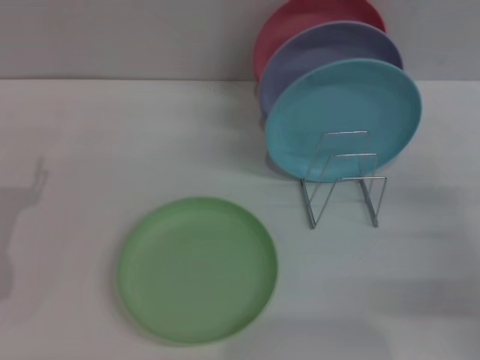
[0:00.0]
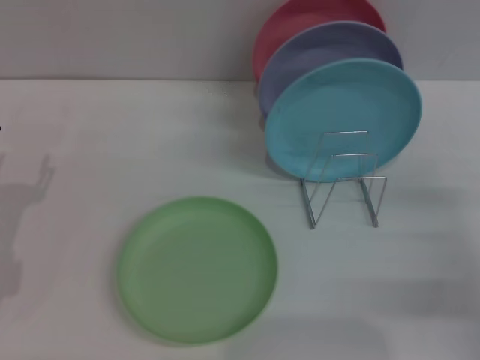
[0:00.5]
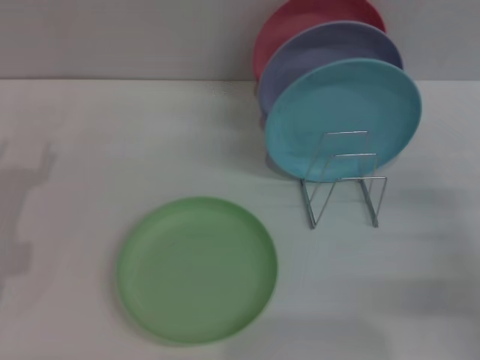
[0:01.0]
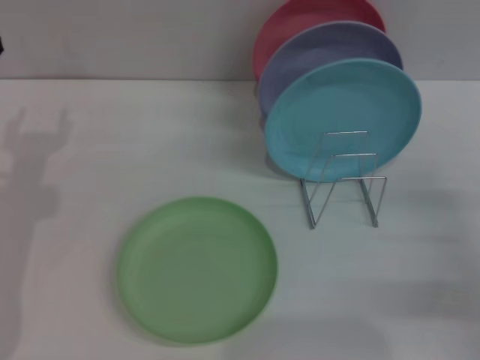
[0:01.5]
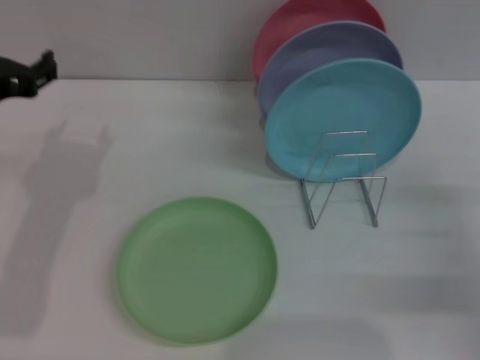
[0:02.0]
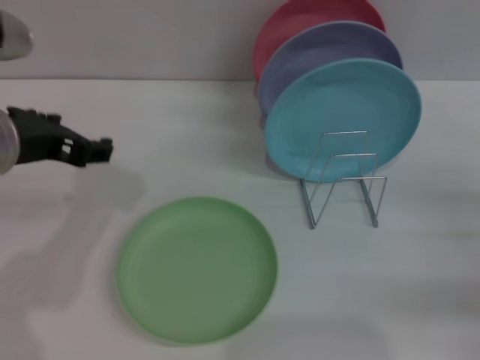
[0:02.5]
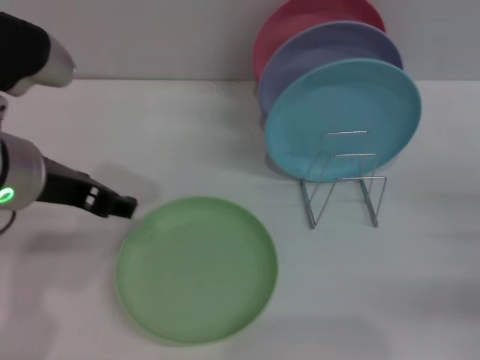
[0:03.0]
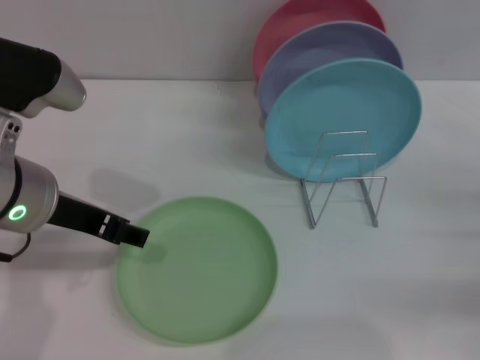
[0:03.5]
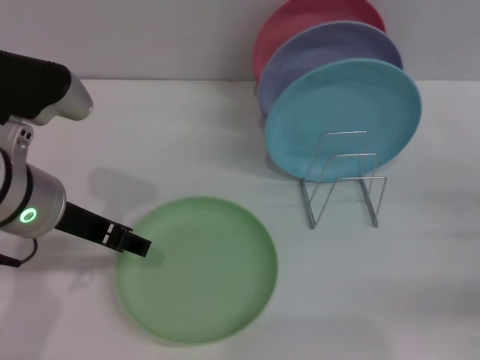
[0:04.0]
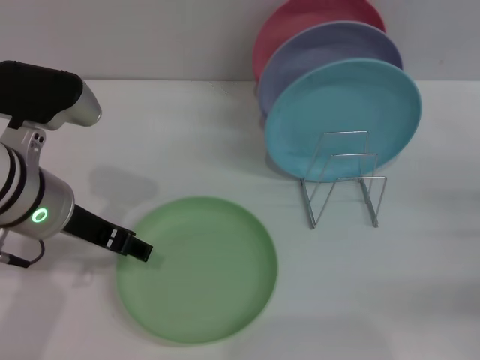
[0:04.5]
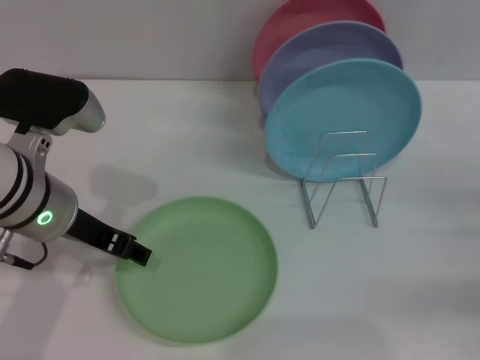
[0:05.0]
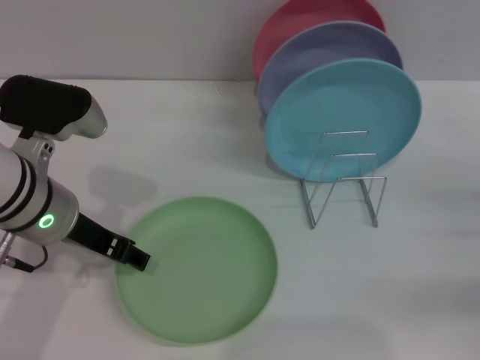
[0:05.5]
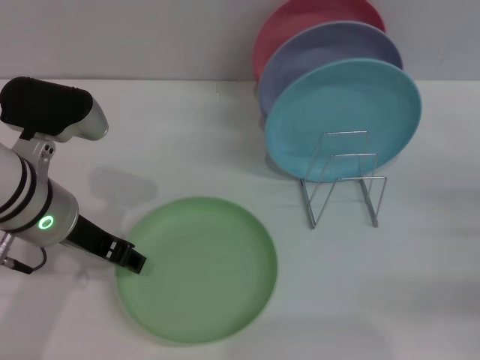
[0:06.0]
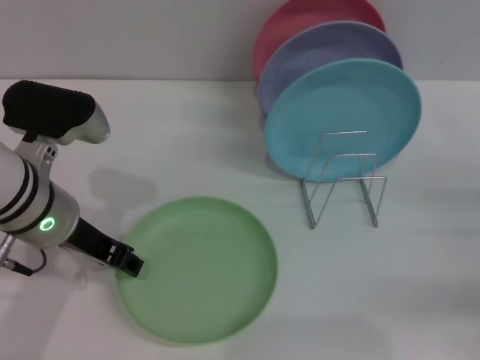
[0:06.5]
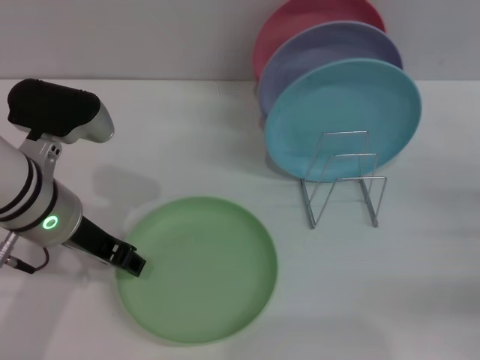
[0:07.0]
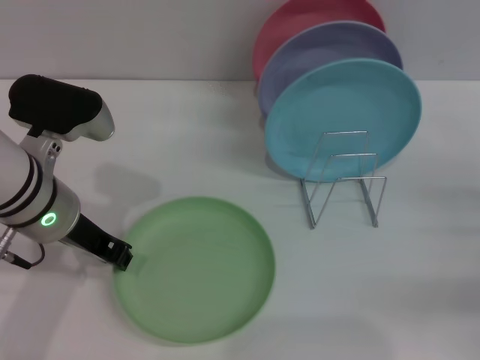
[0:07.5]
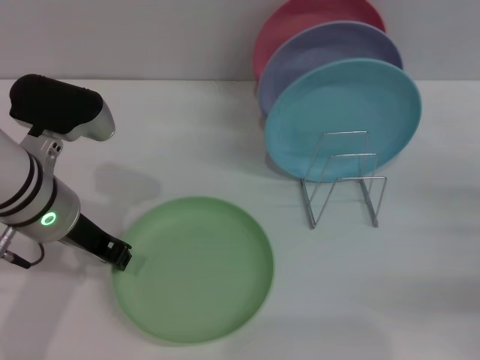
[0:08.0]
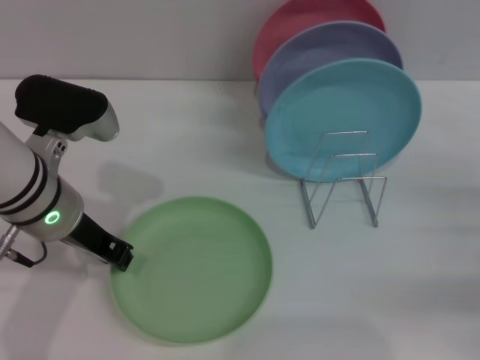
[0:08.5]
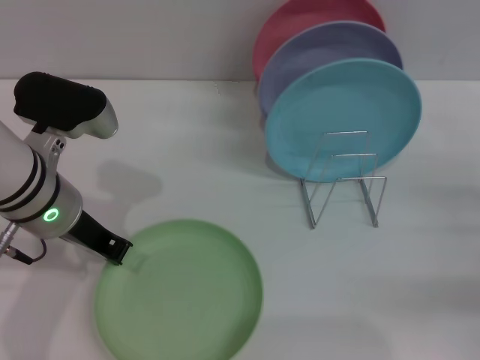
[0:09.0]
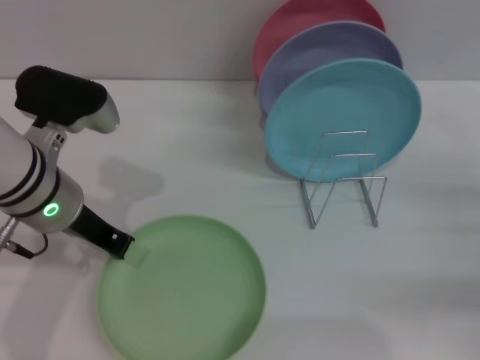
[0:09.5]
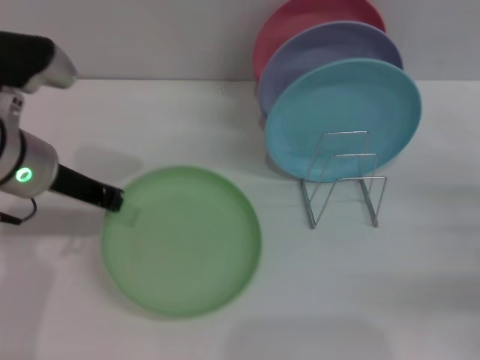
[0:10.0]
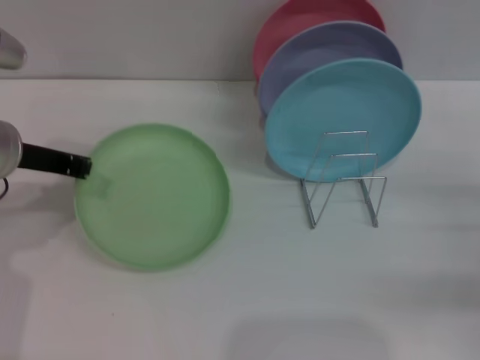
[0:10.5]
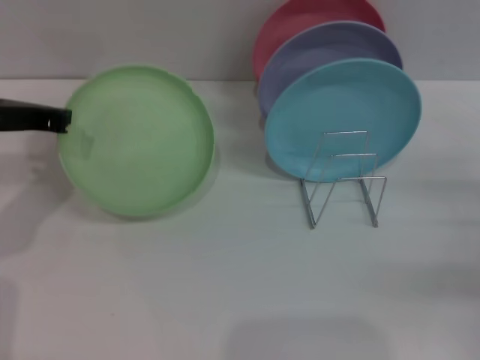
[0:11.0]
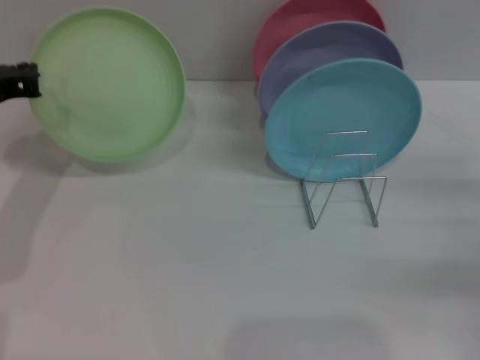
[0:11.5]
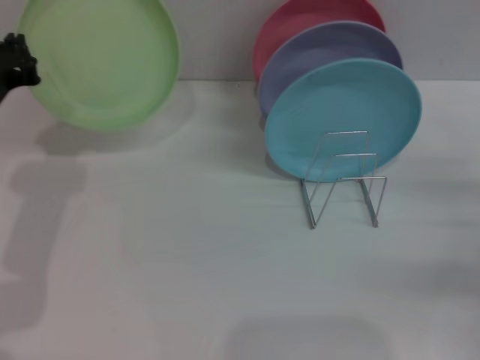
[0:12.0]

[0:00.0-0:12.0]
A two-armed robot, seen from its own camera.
Task of the whole recording: Grip the plate with one hand, pass it to the other, then set it on the shelf.
Step, 0:00.0 to 0:10.0: Pick up the plate with the left gripper.
0:00.0 to 0:02.0: The left gripper shifts some 15 cm upward and to the right.
0:02.0 to 0:04.0: The left gripper is displaced to the right by roughly 5 cm.
0:04.0 to 0:06.0: There are only small adjustments of the grippers.
0:06.0 to 0:08.0: The left gripper closes up.
0:08.0 to 0:10.0: The grippers stay close to where they were, moving slightly.

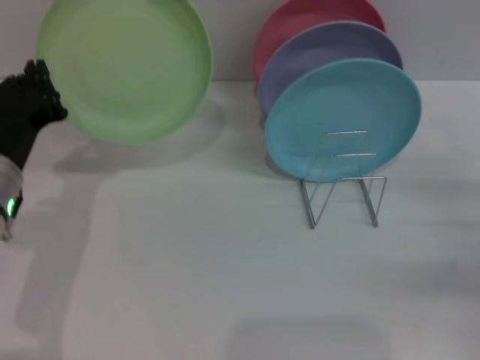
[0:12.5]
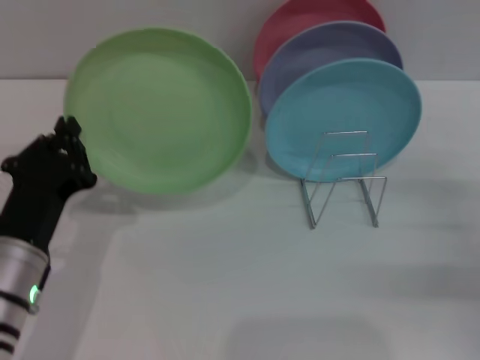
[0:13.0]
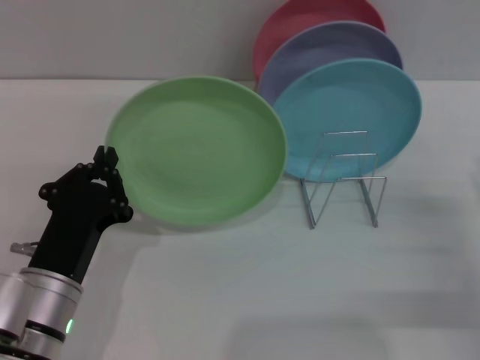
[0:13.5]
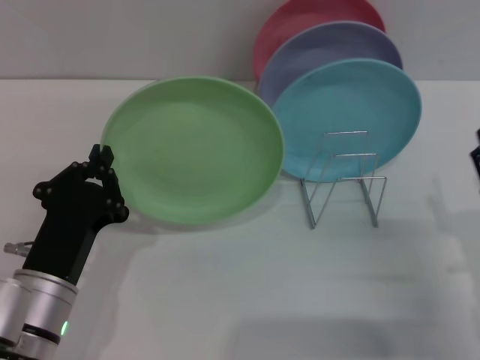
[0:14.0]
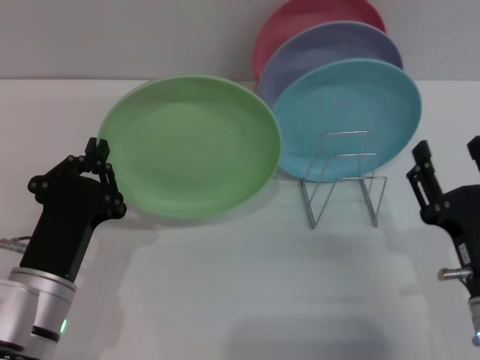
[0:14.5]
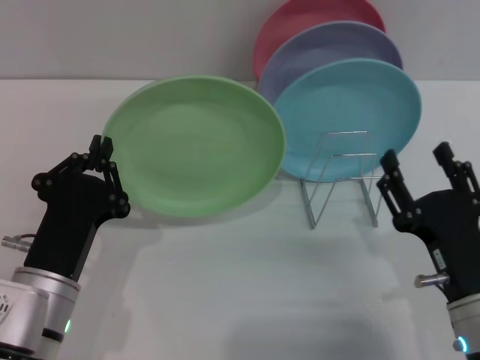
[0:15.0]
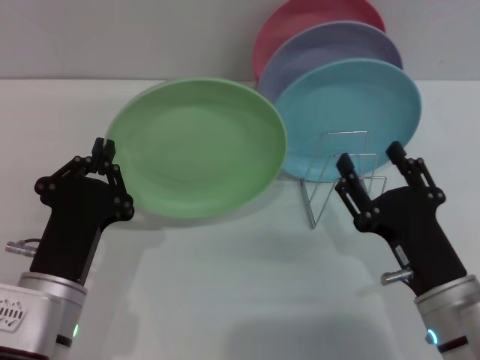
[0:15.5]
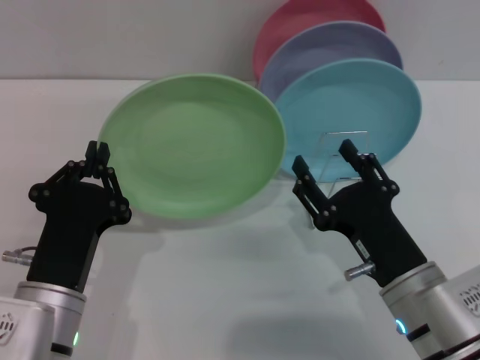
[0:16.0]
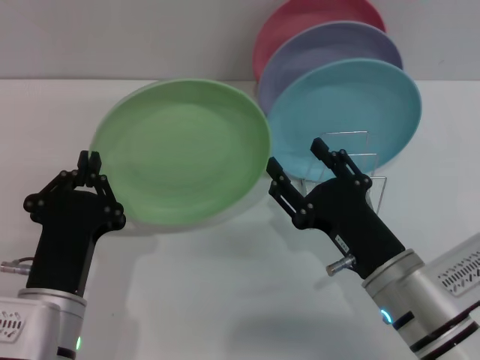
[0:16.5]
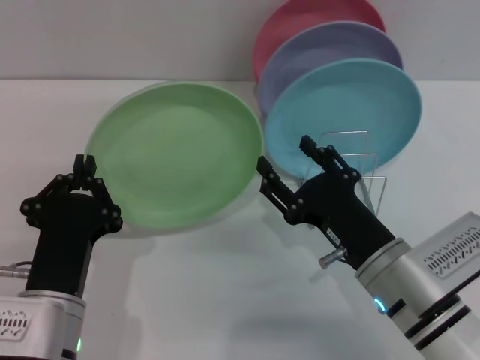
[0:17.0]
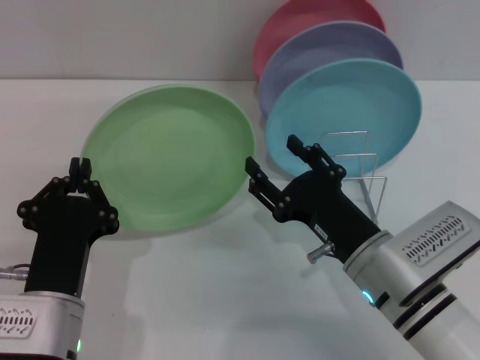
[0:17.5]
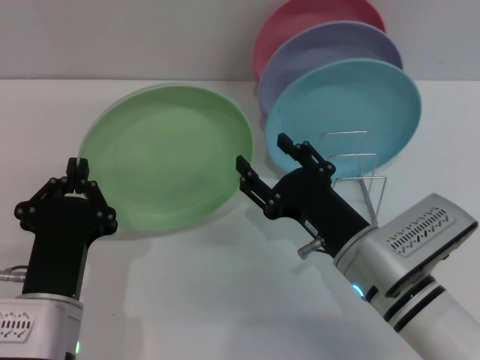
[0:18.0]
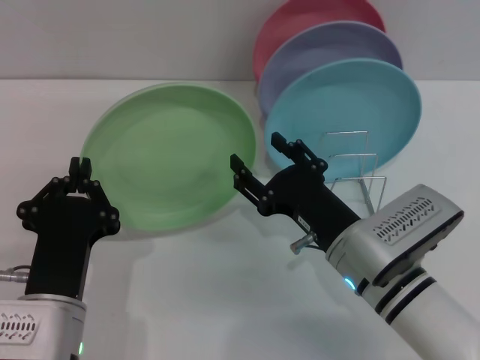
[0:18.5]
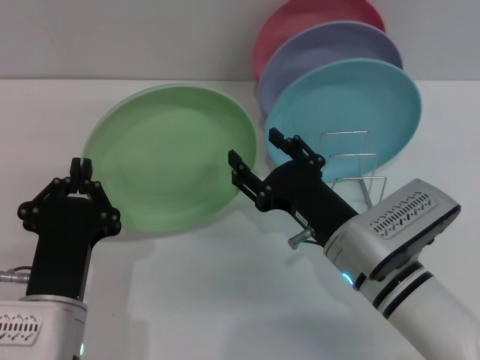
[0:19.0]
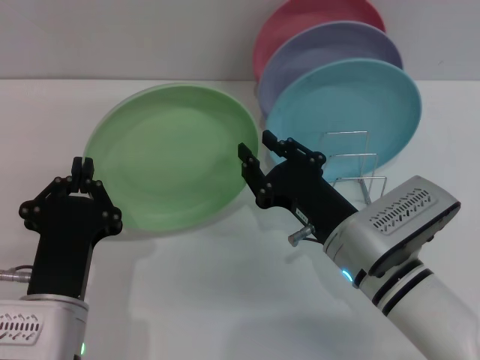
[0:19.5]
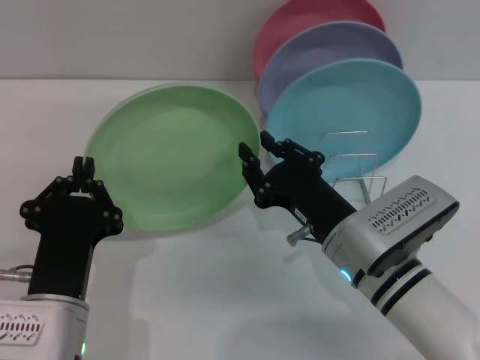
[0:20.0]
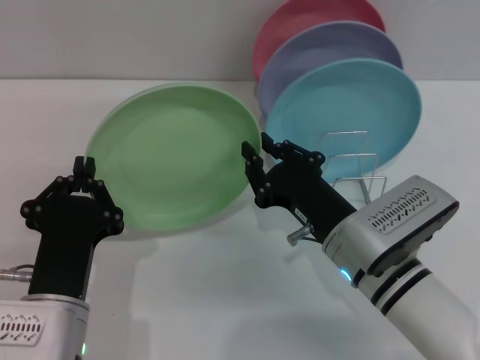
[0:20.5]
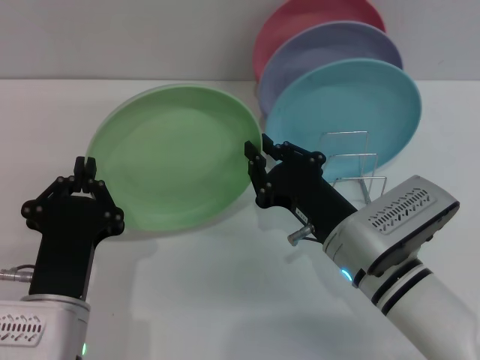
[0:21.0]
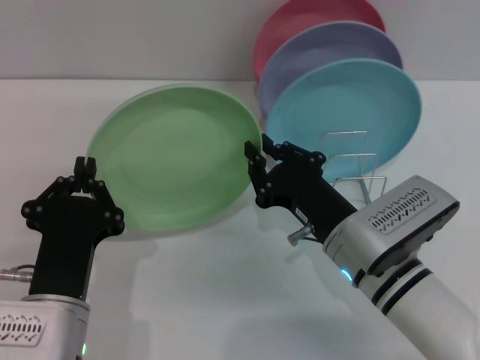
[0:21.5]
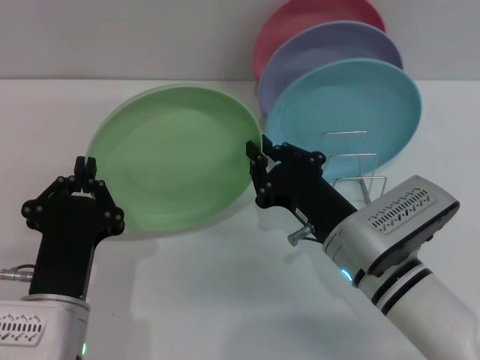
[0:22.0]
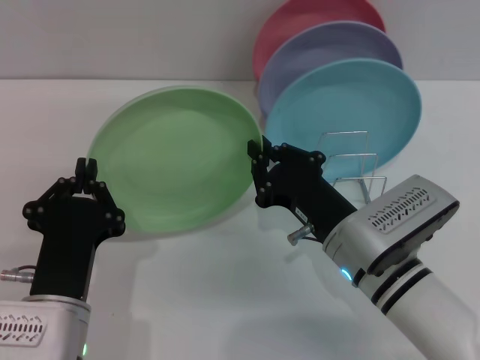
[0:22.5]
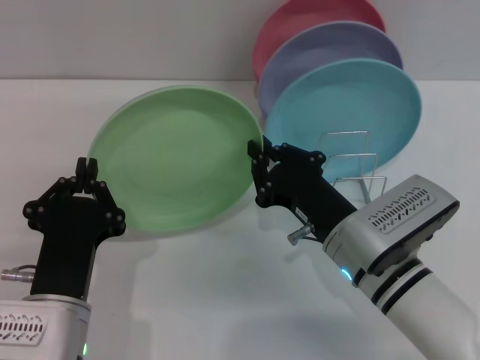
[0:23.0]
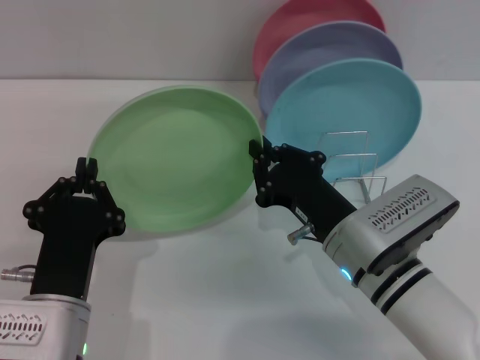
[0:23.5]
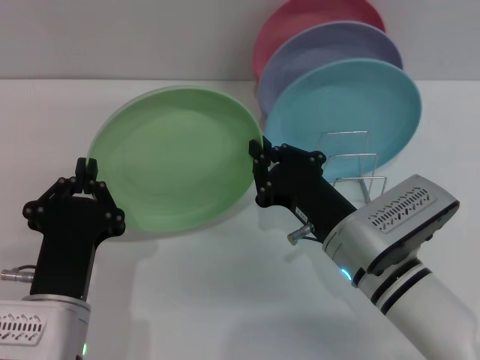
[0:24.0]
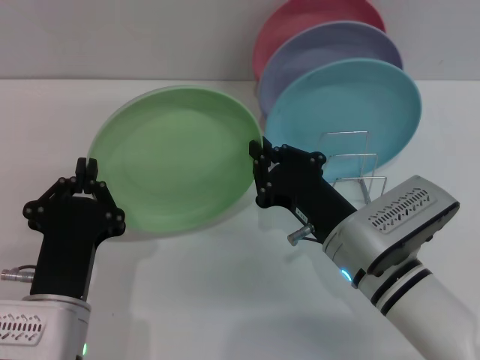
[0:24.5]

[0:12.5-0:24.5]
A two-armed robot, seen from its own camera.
Task of the whole recording: Grip the plate with one hand, pass it to the other, then set it on the shelf.
0:12.5 to 0:14.5: The right gripper is displaced to the left and backward by roughly 15 cm, while the left gripper shifts roughly 10 cm backward and downward.
0:14.5 to 0:16.5: The right gripper shifts approximately 5 cm to the left.
0:16.5 to 0:18.5: There are only small adjustments of the grippers.
0:18.5 to 0:20.5: The right gripper closes its fingers.
0:20.5 to 0:24.5: Neither gripper changes place.

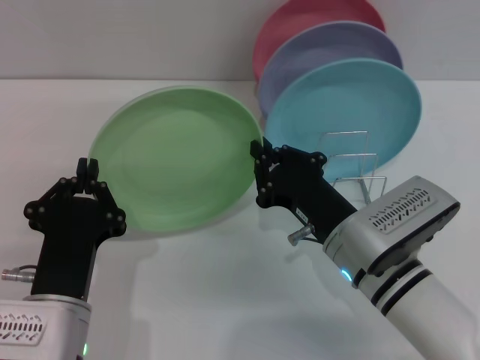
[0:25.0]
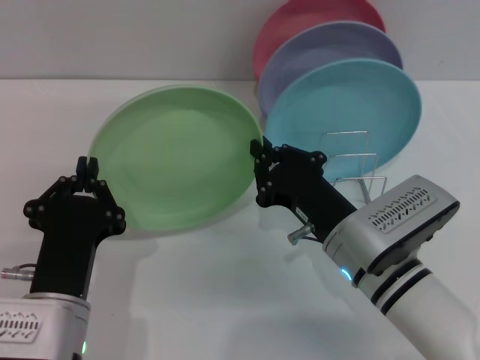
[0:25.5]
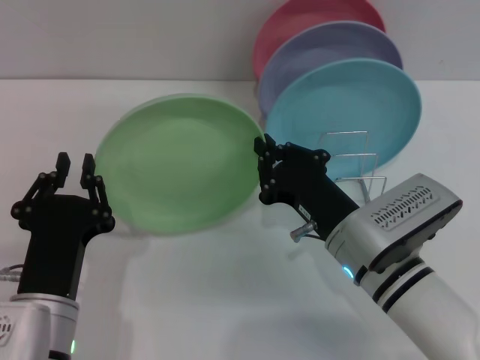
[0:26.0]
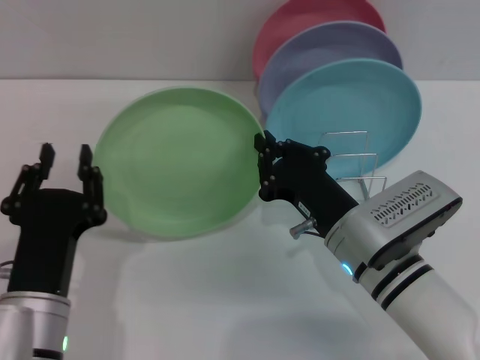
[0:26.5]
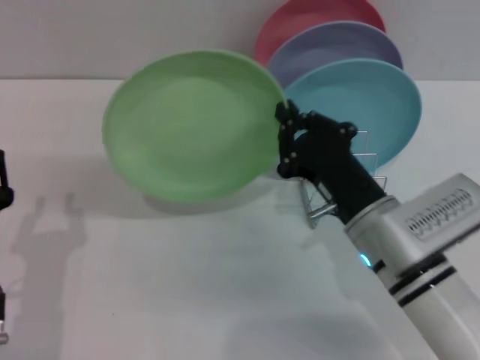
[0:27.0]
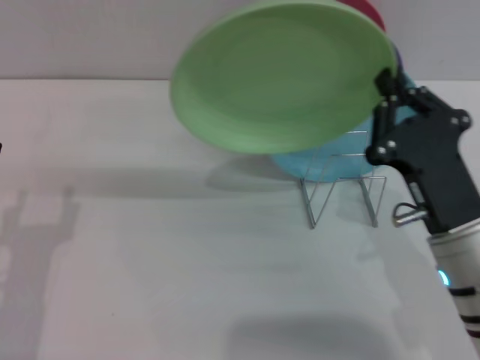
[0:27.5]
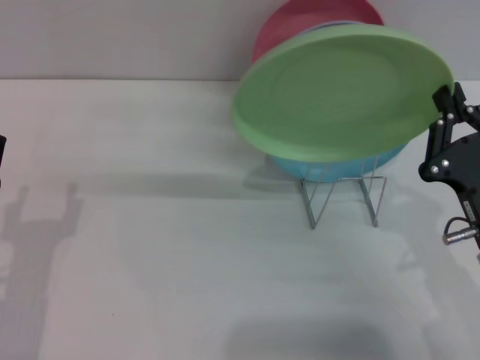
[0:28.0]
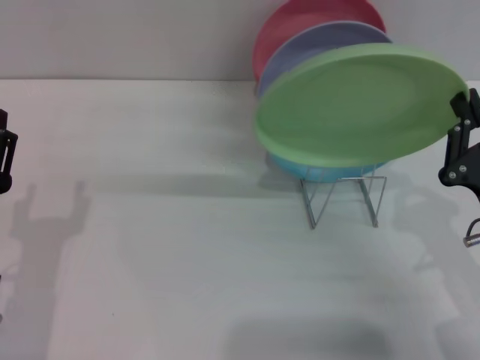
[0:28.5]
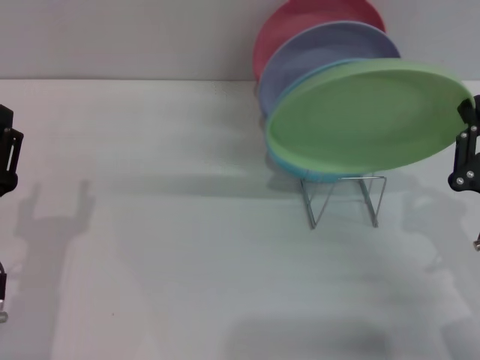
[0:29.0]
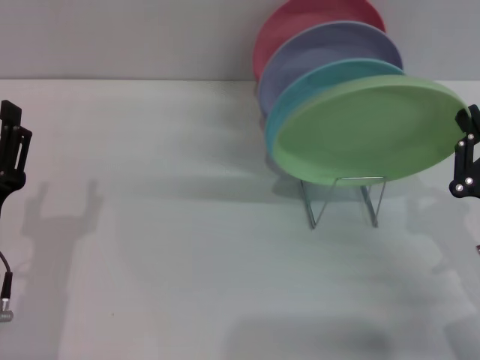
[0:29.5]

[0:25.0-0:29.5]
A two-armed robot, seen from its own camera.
Task of the whole recording: Grip the plate with one hand, pass it to the other, then set it on the shelf.
0:25.0 to 0:27.0: The left gripper heads to the left, covering about 5 cm, and opens up.
0:27.0 to 0:29.5: The right gripper goes roughly 15 cm to the right, while the left gripper opens.
